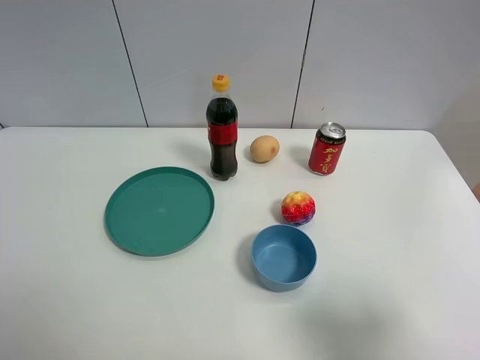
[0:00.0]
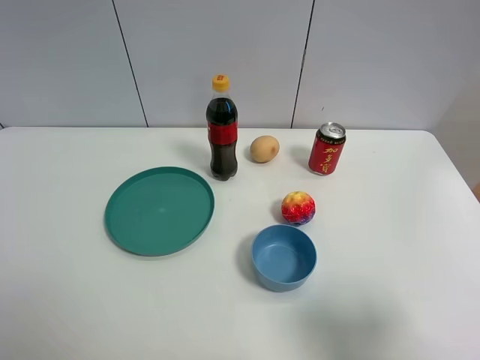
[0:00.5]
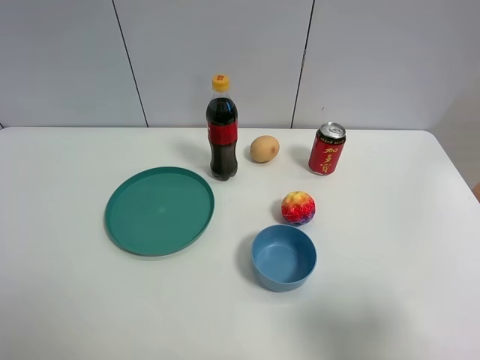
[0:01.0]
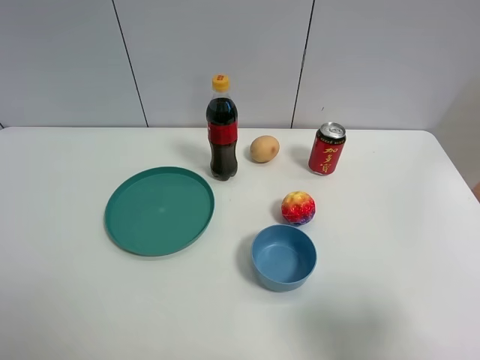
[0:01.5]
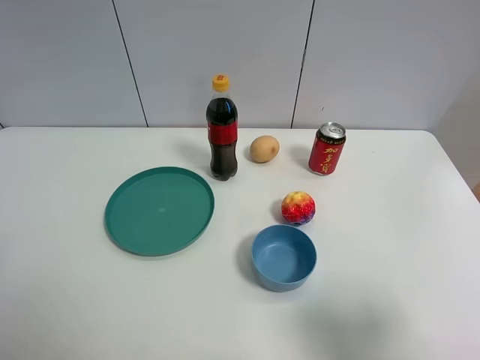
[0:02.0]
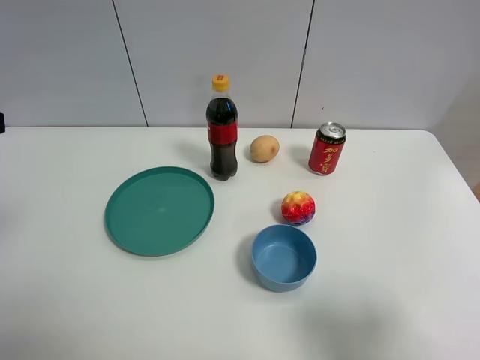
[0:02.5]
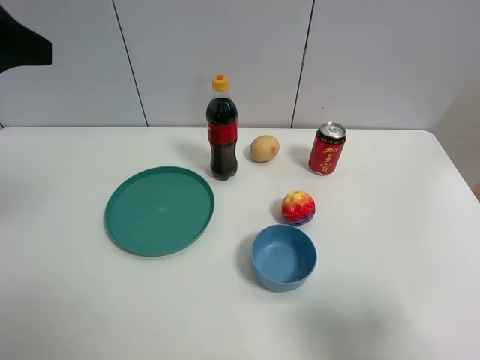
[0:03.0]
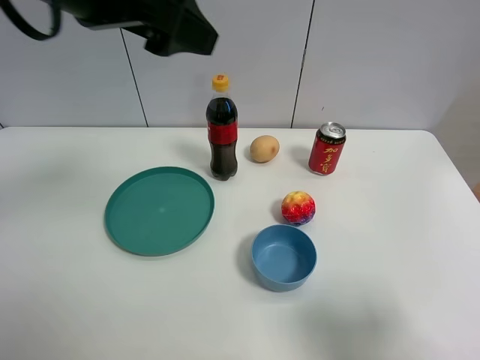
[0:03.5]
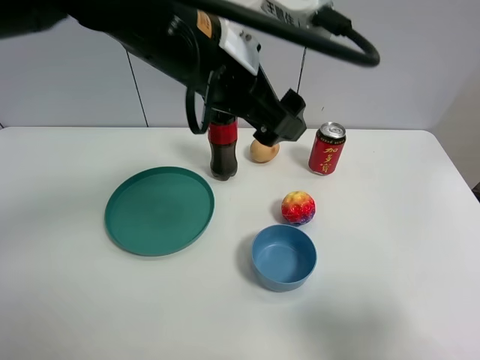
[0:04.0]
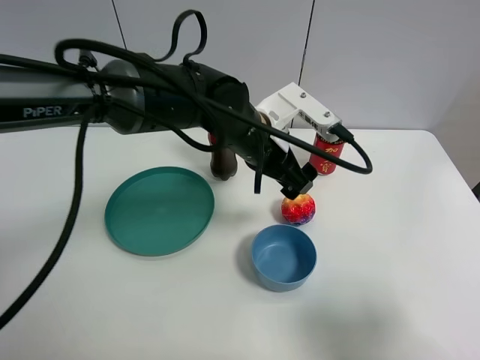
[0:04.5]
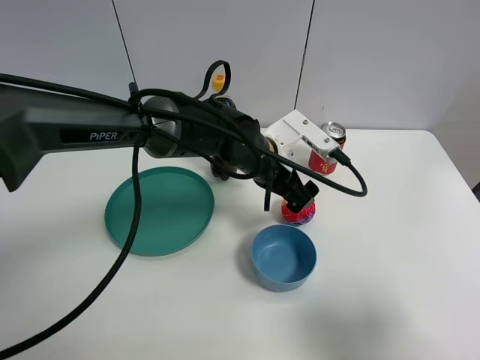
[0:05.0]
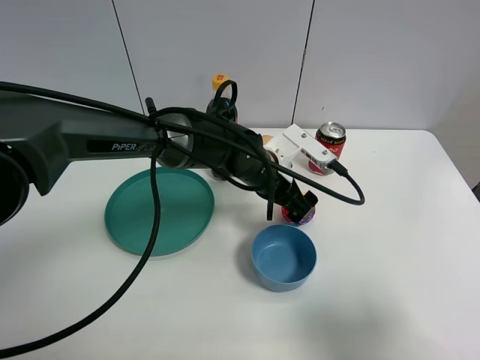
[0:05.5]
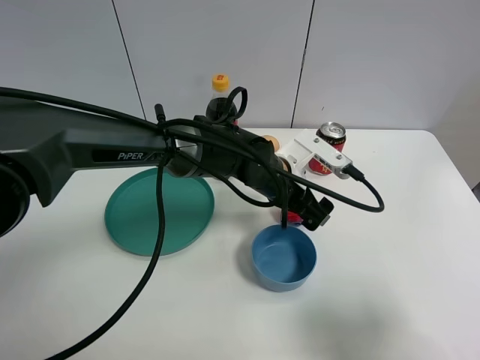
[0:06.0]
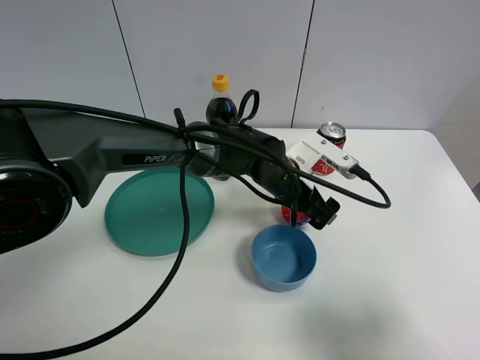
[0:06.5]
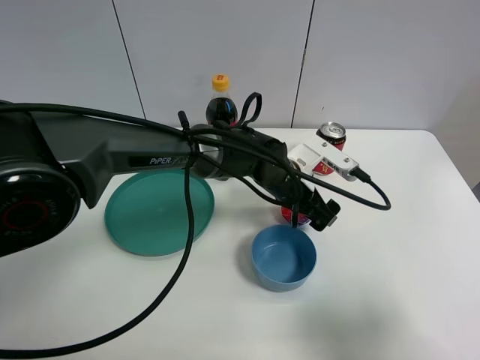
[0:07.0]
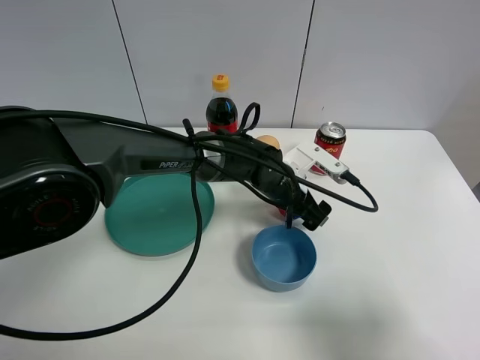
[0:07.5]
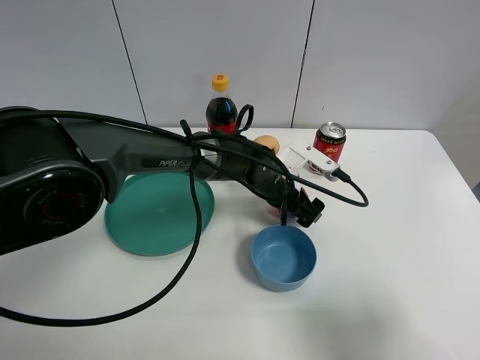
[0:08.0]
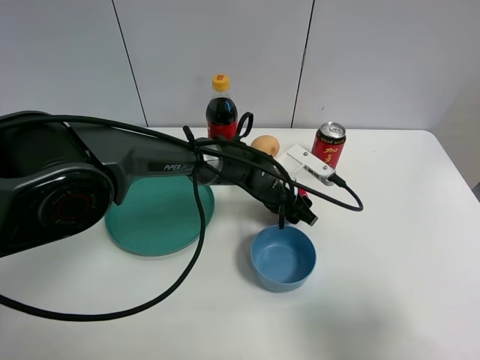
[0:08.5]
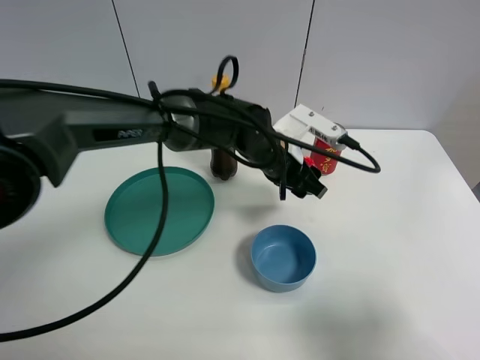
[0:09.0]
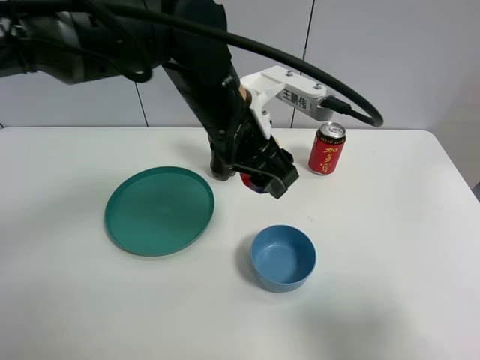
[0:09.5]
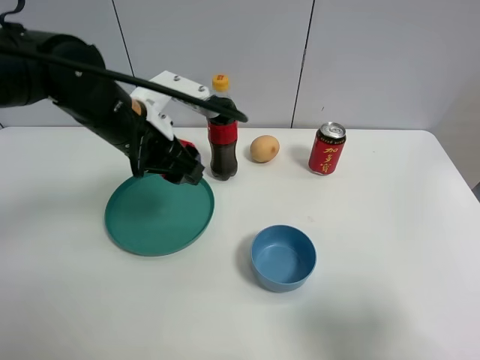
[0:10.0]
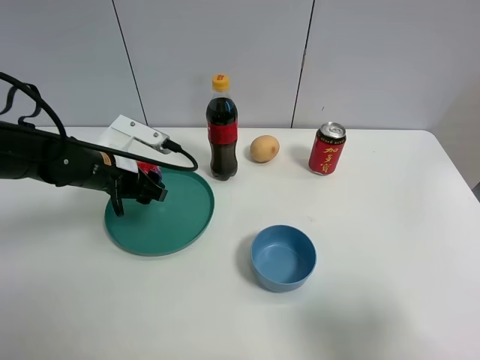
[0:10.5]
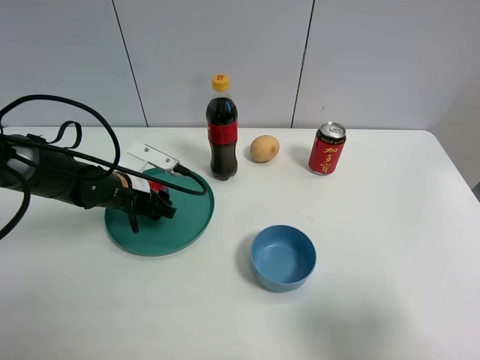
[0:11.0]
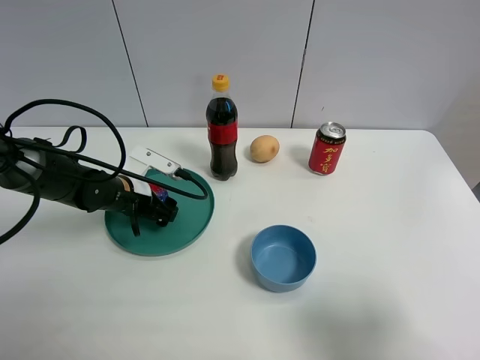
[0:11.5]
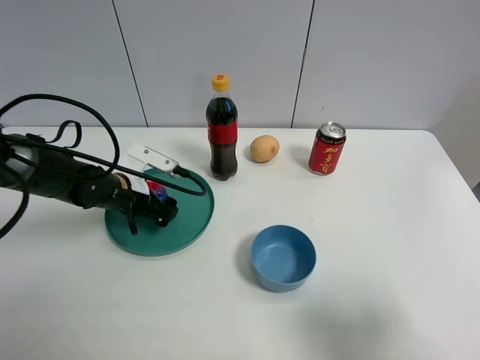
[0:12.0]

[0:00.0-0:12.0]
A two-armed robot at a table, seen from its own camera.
Task of the whole recording: the gripper move the object.
Step, 0:00.0 to 0:08.5: Grasp the colorful ball with the left gripper.
Step, 0:09.0 to 0:12.0: Place the colorful ball on the table with the left gripper.
0:02.0 to 0:04.0: The left gripper heads to the right and forward, covering approximately 35 cm.
0:04.0 to 0:06.0: The left gripper shifts about 20 cm downward and to the right.
0:06.0 to 0:08.0: The left gripper shifts by about 5 cm.
0:08.0 to 0:10.0: The left gripper moves to the left and upward, some 25 cm, and closes up.
0:10.0 to 0:12.0: The left gripper heads downward and to the left, covering approximately 15 cm, and opens.

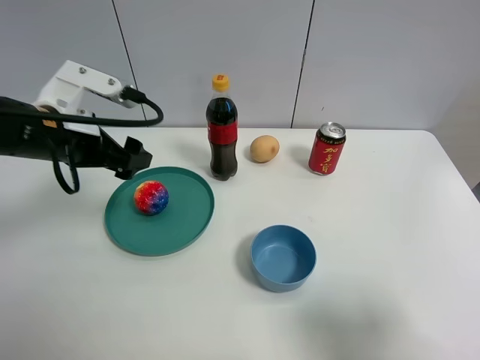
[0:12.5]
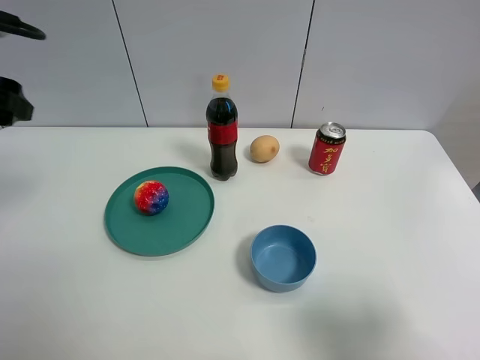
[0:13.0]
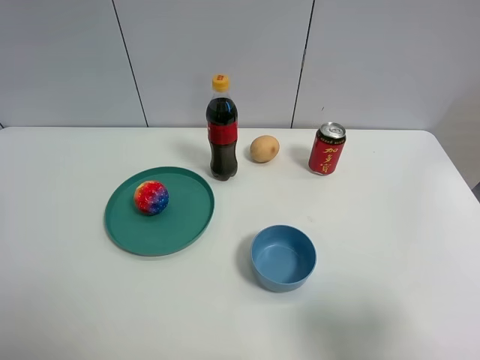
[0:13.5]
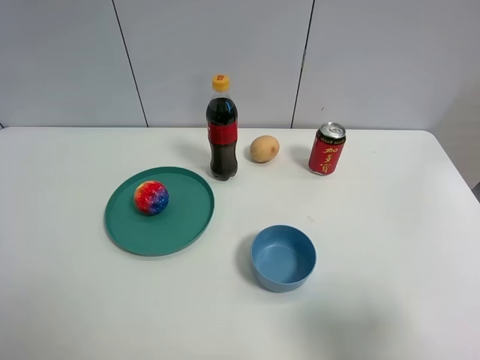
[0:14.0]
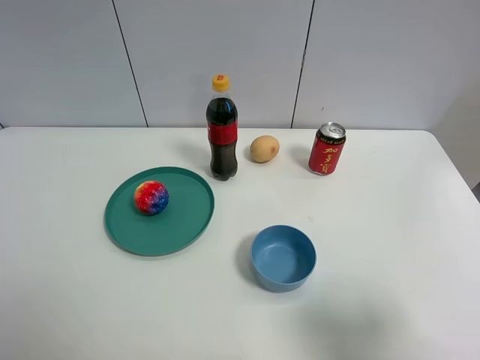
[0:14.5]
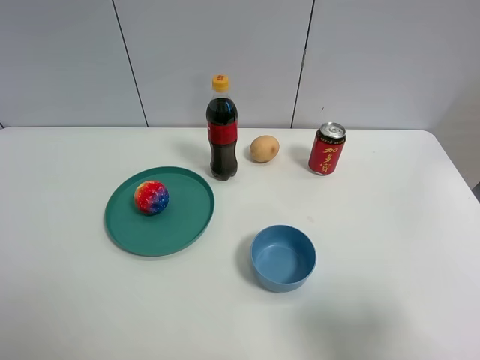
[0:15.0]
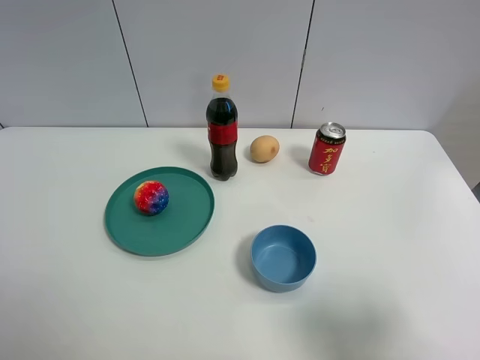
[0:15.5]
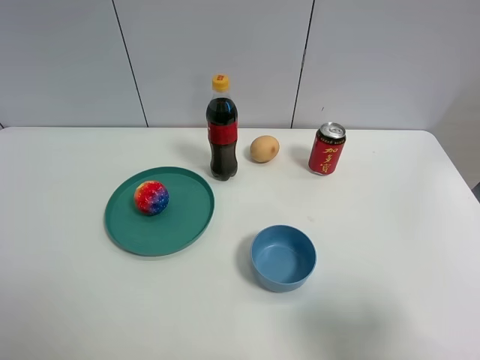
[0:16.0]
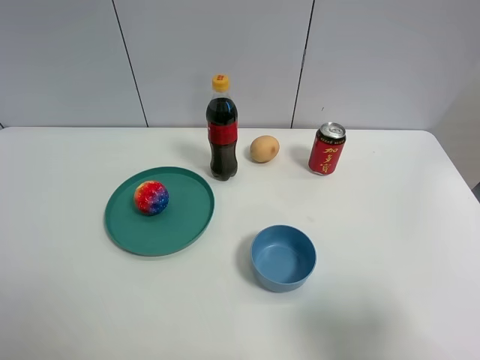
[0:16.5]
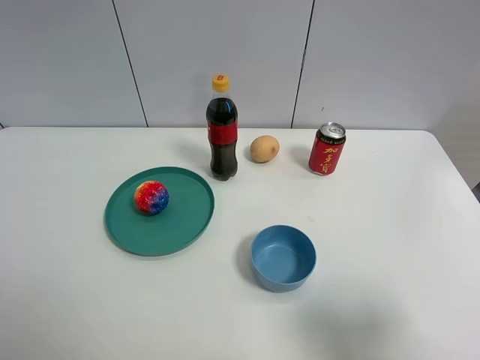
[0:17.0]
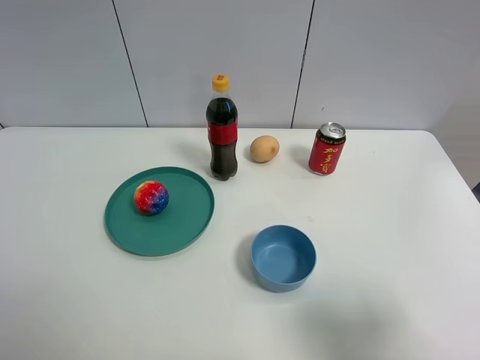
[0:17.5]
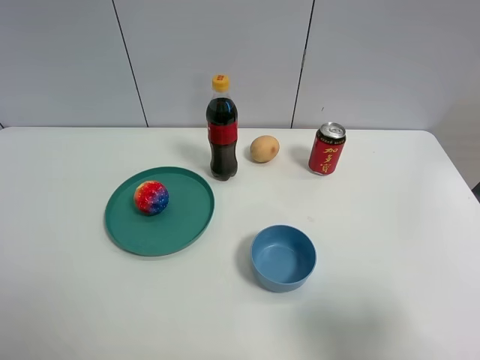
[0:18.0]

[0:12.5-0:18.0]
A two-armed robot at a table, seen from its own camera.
Task of the whole recording: the gripper move the object.
0:12.5 to 0:14.5: The left gripper shifts roughly 25 cm backward.
0:16.0 to 0:18.0: Neither gripper changes place.

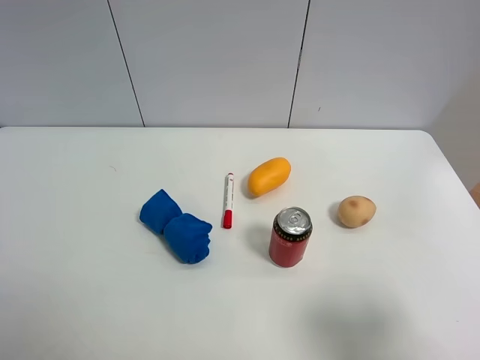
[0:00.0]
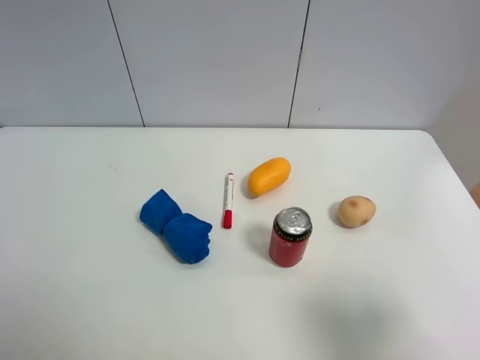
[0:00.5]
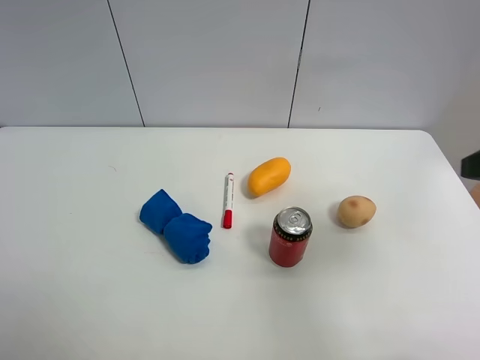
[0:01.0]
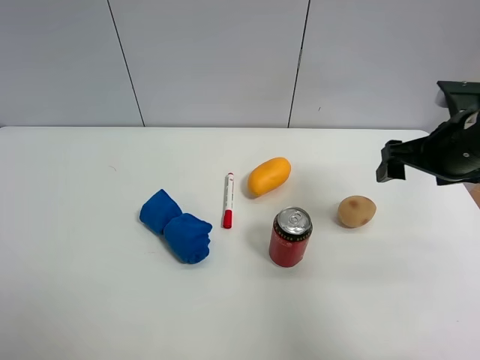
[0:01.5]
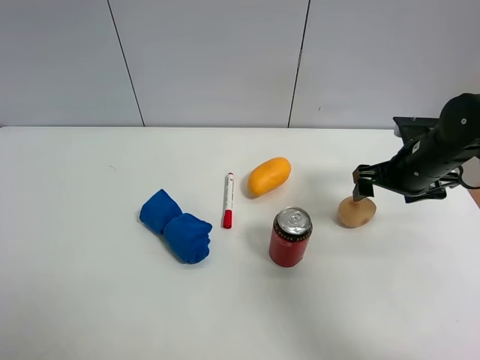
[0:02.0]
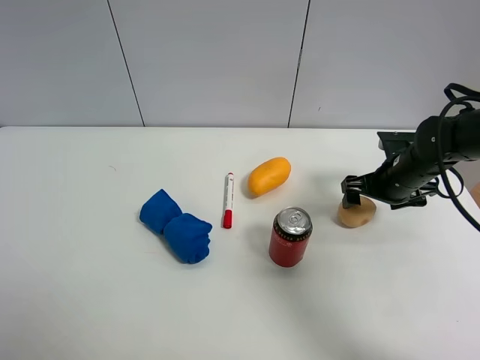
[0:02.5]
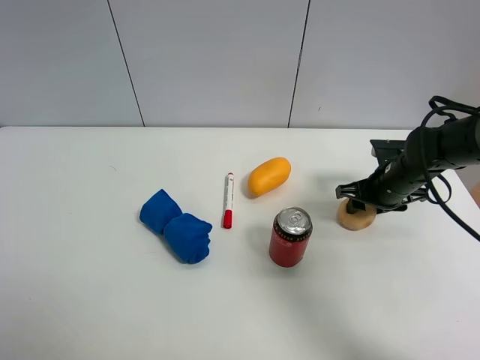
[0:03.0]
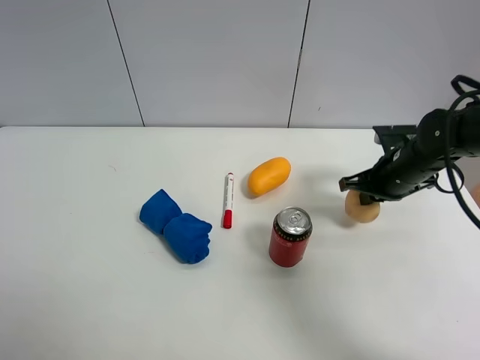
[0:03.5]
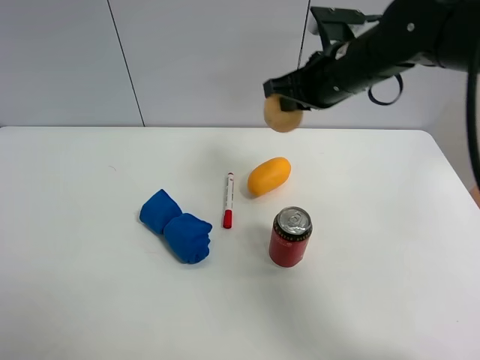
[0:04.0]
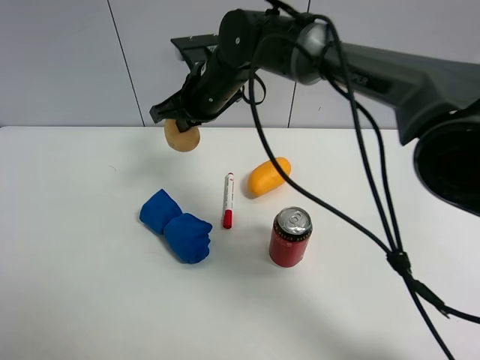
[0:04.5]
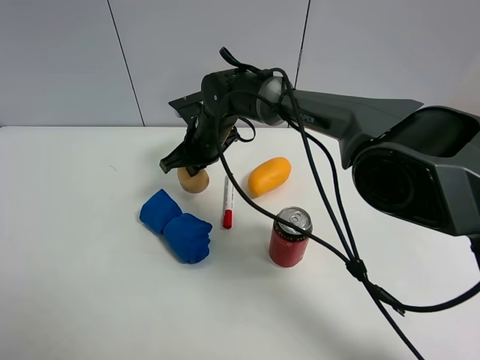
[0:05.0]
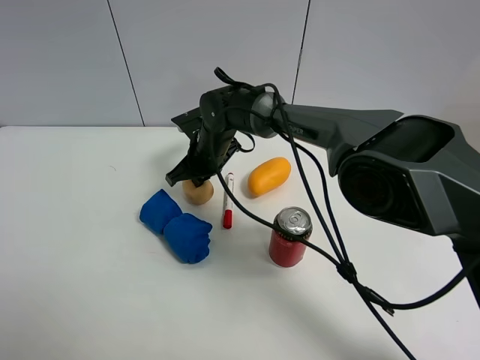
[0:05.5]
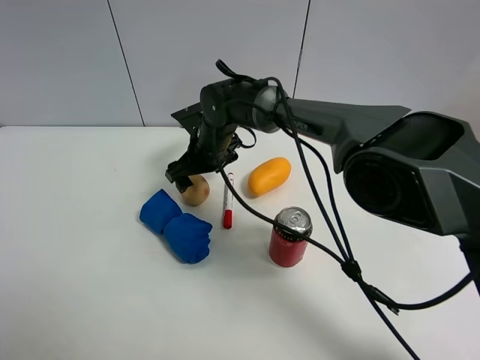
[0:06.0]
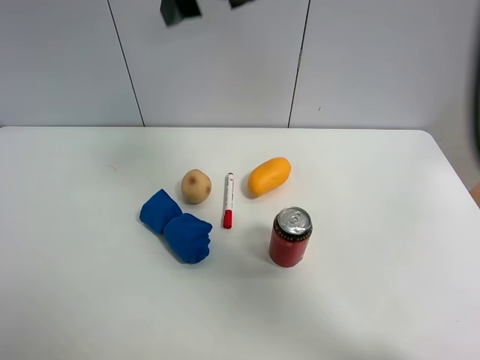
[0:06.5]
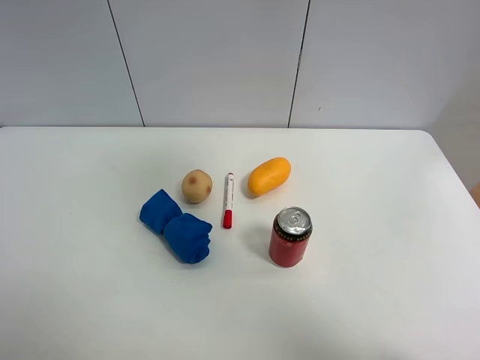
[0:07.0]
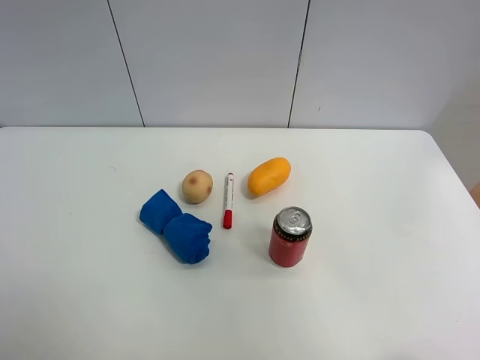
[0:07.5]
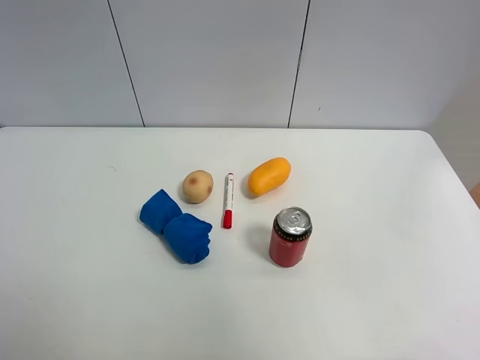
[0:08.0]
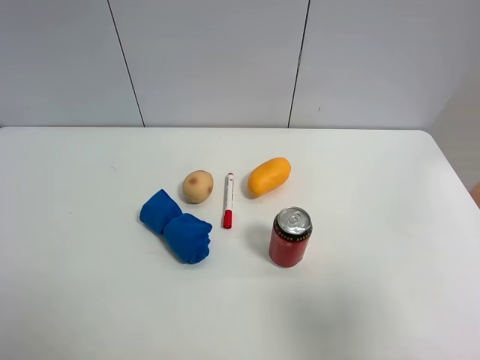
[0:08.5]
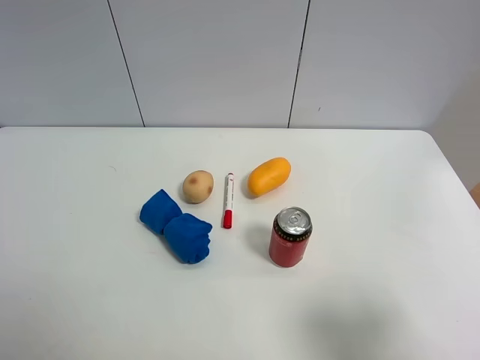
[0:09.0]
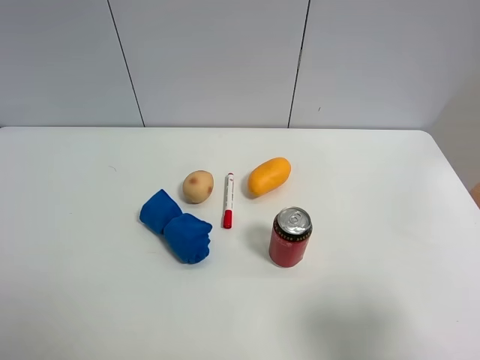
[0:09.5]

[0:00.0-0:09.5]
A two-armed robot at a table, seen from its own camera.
Task of the whole recording: the gripper move the object.
Step, 0:00.0 to 0:03.0: Grasp the egg yolk pastry with the right gripper.
Step, 0:03.5 to 0:06.0: Place the egg yolk pastry on the table with the right gripper.
0:00.0 to 0:02.0: The right gripper heads forward, covering roughly 30 cm.
0:02.0 to 0:04.0: The right gripper travels to the left and upward by about 20 cm, and closes up.
0:04.0 to 0:05.5: The right gripper moves downward and to the left, approximately 25 cm.
0:05.5 to 0:07.5: The right gripper goes approximately 70 cm upward, backward and to the right, and opens its fingers.
0:07.5 to 0:09.5: The right gripper is displaced downward by approximately 35 cm.
